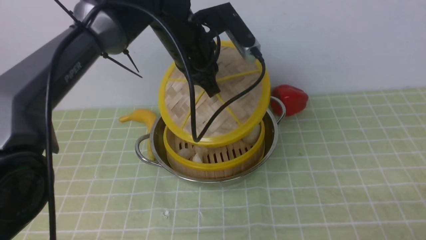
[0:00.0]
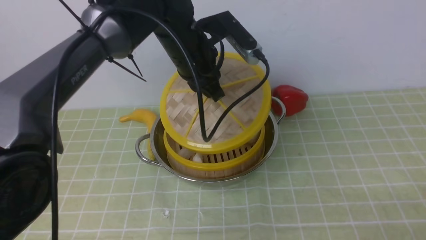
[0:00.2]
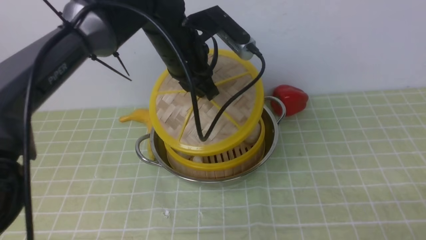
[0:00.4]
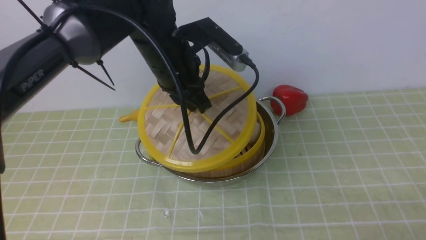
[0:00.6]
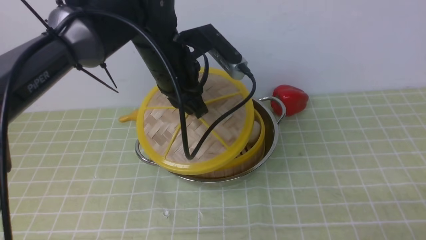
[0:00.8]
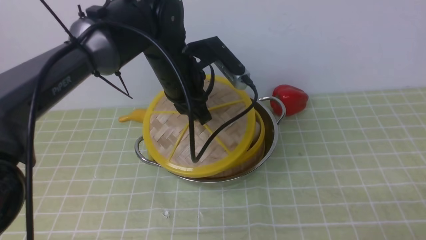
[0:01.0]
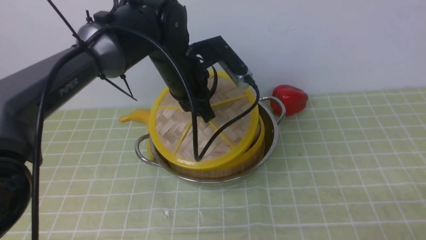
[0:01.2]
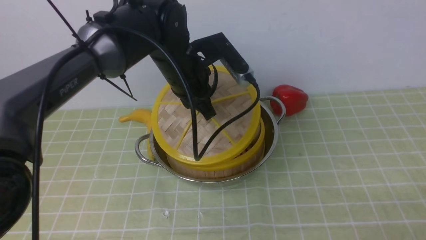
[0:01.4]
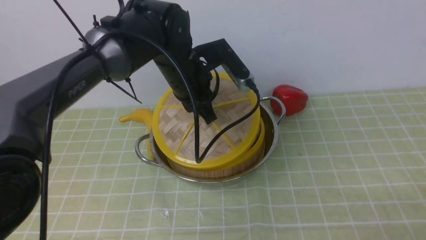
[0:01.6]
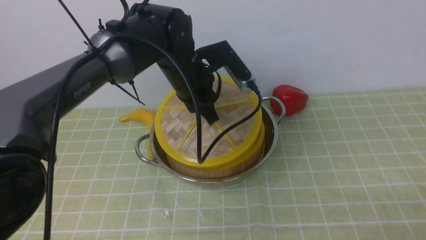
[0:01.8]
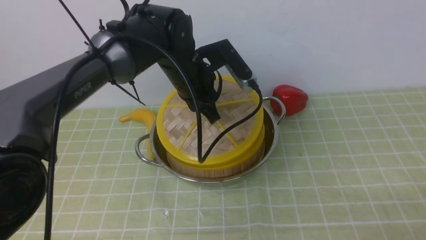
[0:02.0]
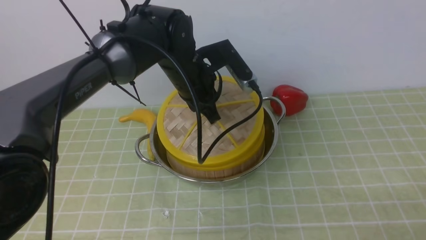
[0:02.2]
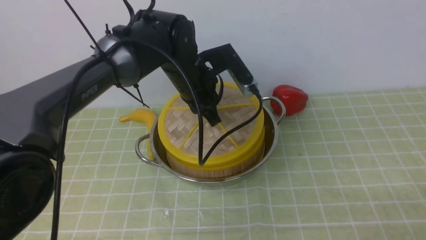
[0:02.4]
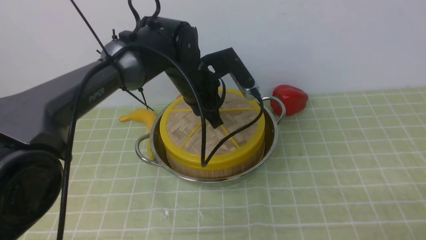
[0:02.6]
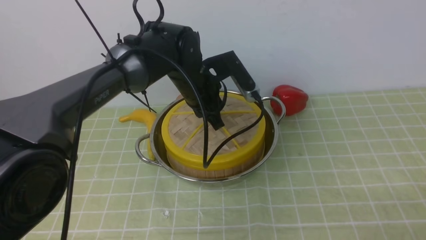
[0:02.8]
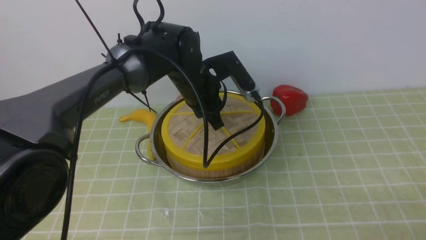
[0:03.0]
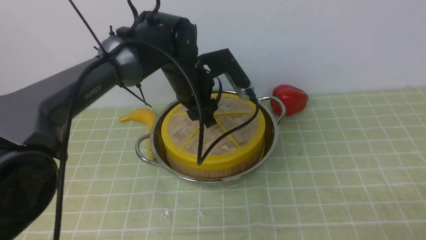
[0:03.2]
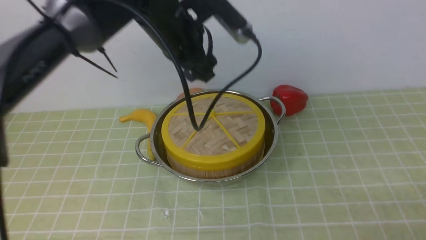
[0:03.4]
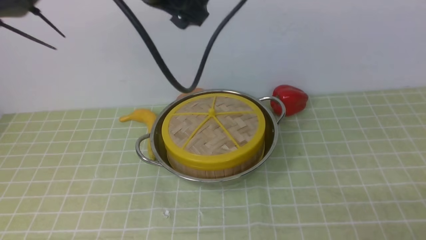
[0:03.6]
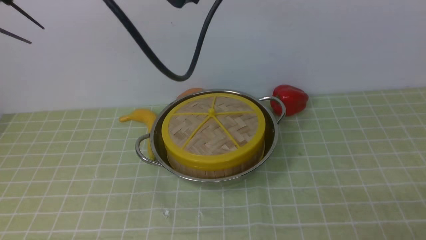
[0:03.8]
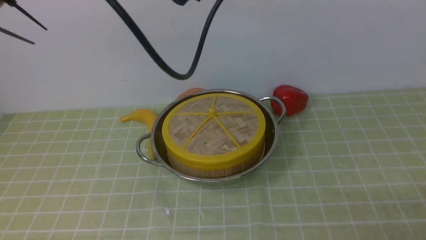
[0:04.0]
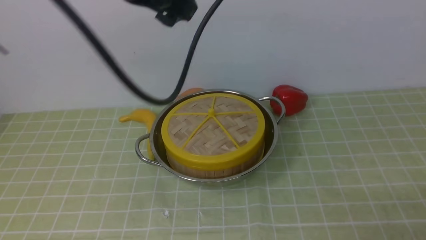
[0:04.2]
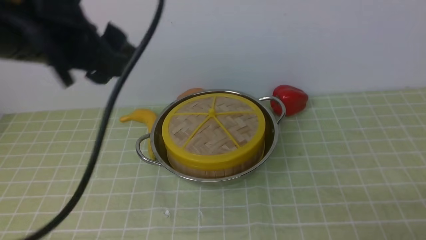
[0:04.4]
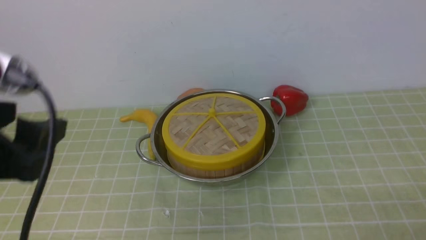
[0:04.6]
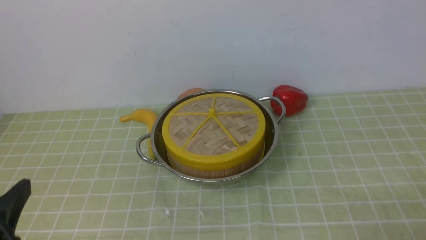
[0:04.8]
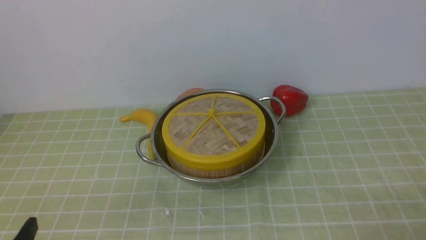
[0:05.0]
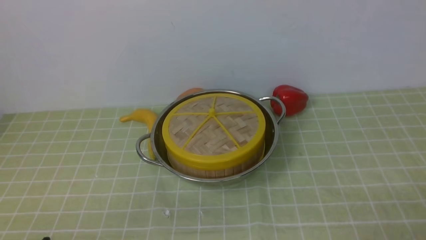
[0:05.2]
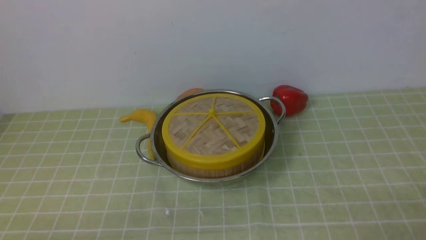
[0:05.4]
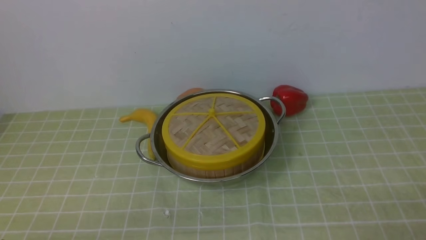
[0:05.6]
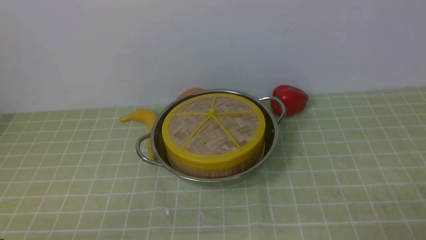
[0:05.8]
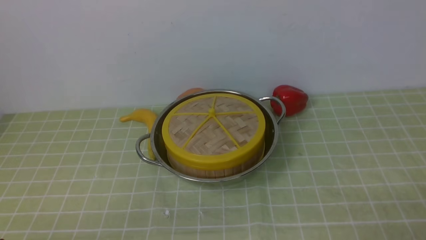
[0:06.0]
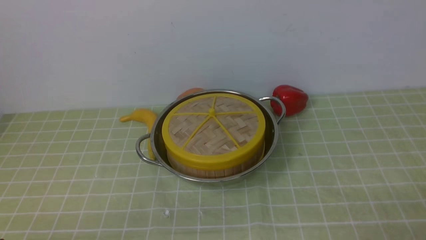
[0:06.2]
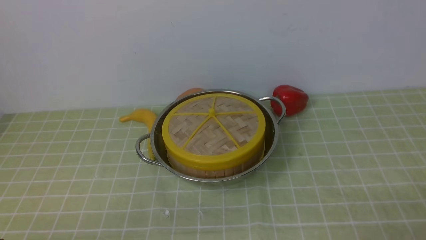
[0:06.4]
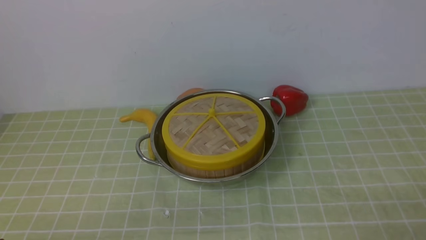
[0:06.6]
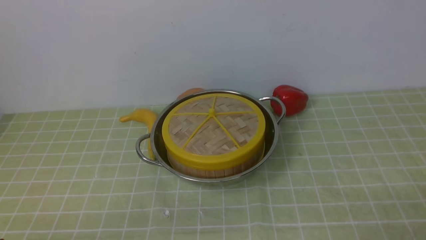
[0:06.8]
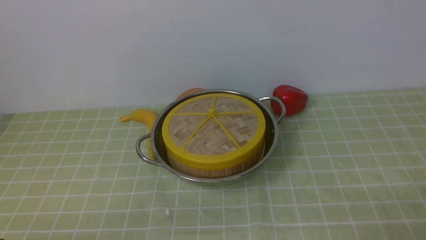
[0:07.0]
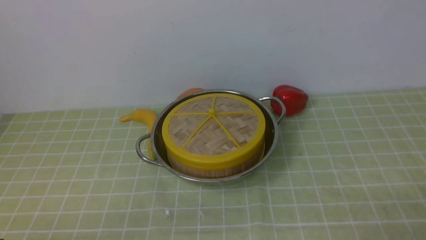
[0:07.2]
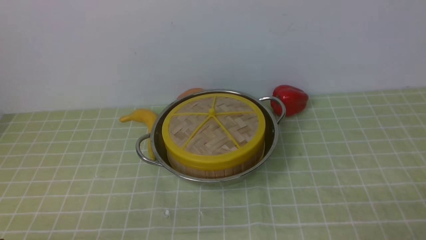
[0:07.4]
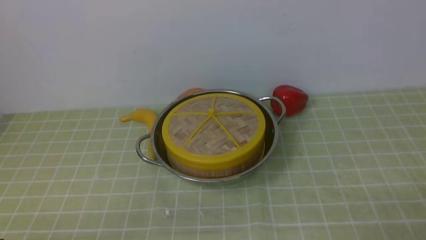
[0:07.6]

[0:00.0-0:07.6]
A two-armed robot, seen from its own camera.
Task of the whole recording: place the steamer in the pot on the green tablecloth, and put the lid on the steamer.
Step, 0:00.0 to 0:03.8: use the left arm to place the steamer lid on the steamer.
0:01.6 to 0:03.0: The grippers move only a little.
0:03.0 to 0:04.6: The left gripper moves backward, upward and to the left, about 35 cm, and opens up.
0:04.6 to 0:06.0: The left gripper shifts roughly 25 cm downward and backward.
0:06.0 to 0:07.6: The two grippers keep their place.

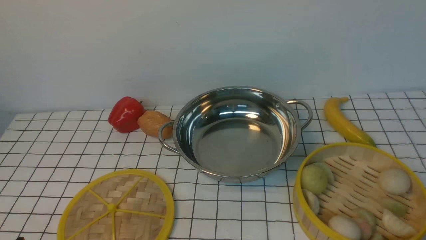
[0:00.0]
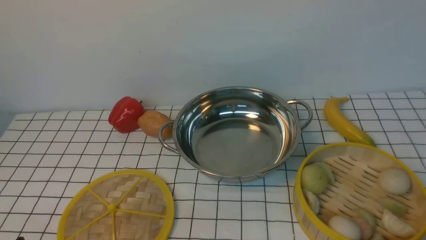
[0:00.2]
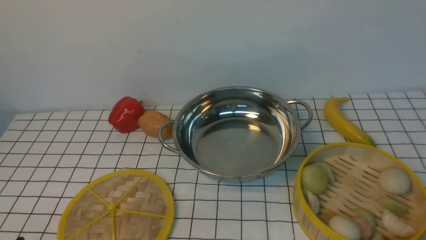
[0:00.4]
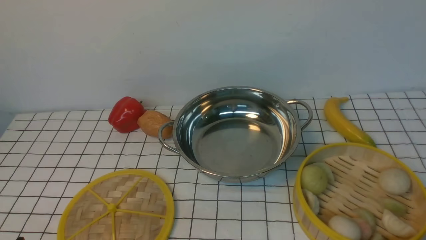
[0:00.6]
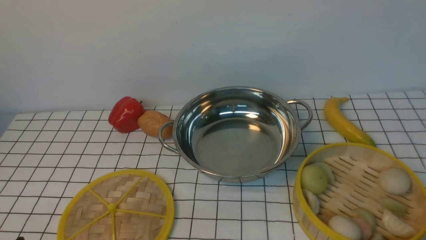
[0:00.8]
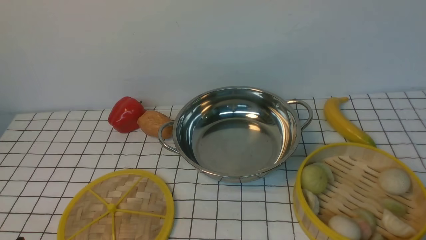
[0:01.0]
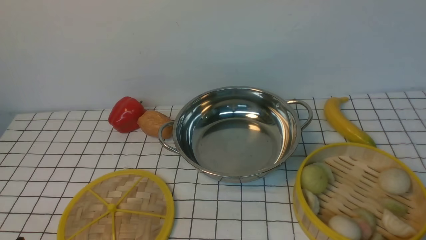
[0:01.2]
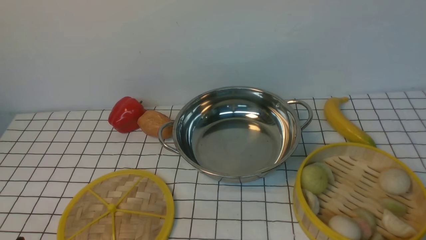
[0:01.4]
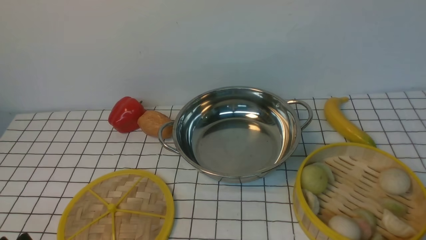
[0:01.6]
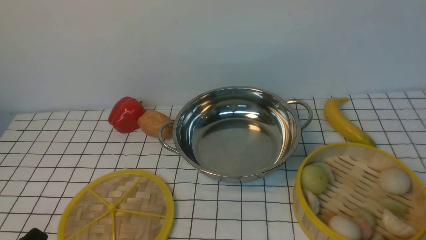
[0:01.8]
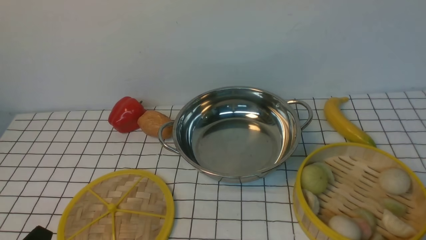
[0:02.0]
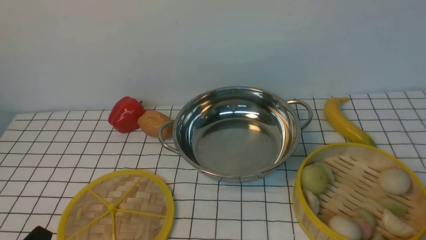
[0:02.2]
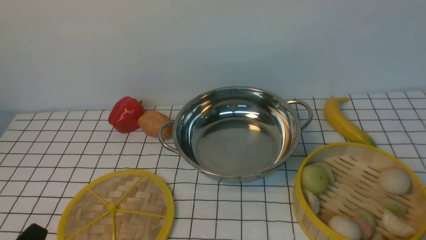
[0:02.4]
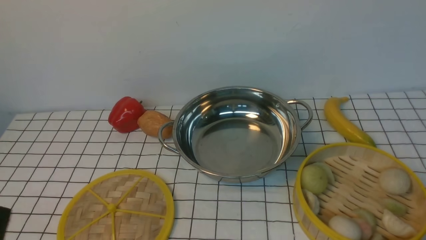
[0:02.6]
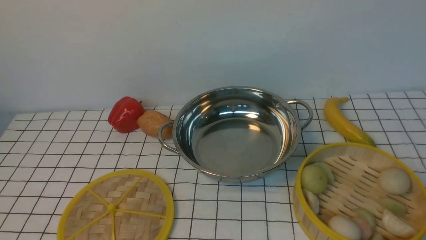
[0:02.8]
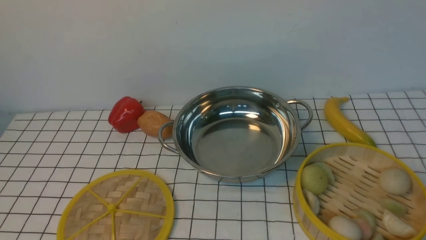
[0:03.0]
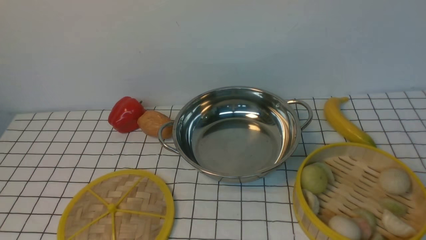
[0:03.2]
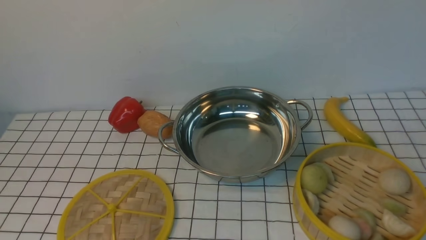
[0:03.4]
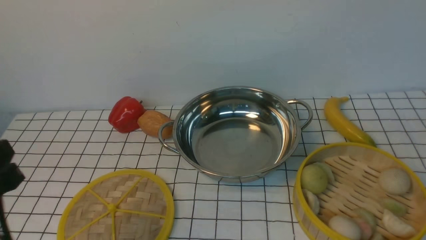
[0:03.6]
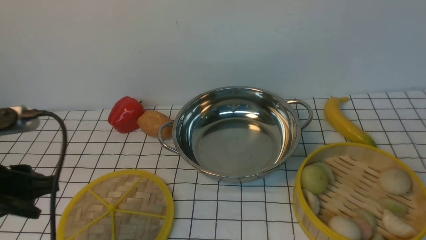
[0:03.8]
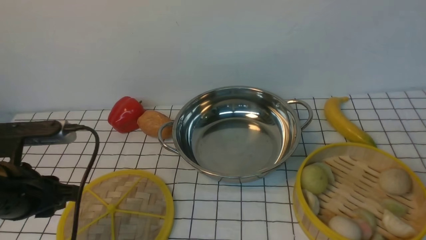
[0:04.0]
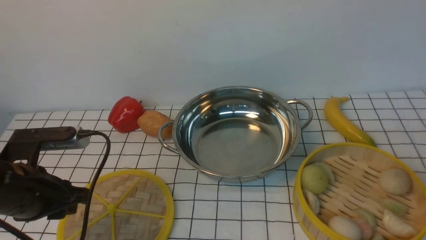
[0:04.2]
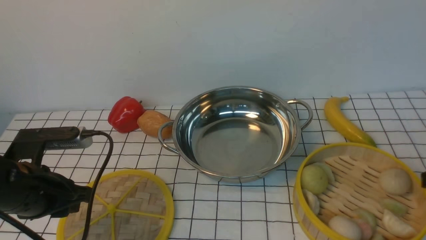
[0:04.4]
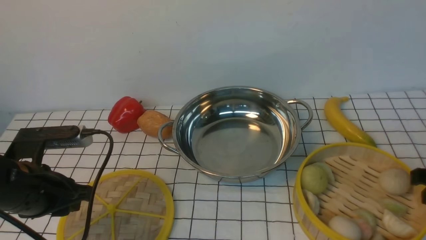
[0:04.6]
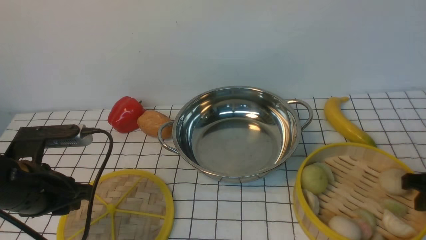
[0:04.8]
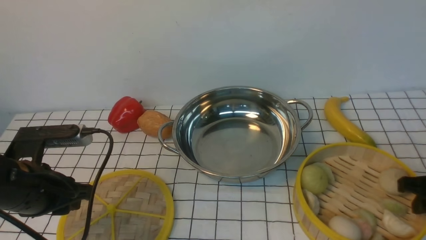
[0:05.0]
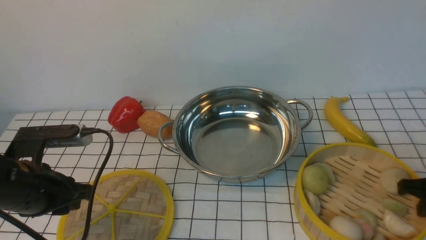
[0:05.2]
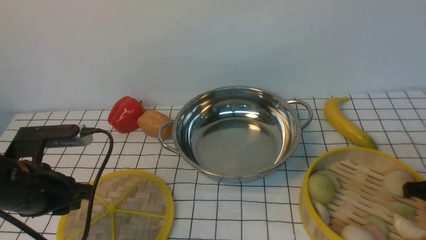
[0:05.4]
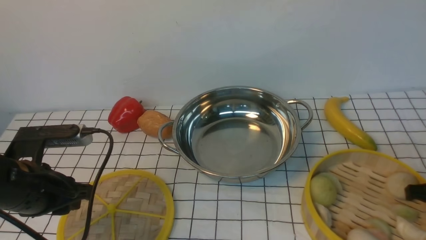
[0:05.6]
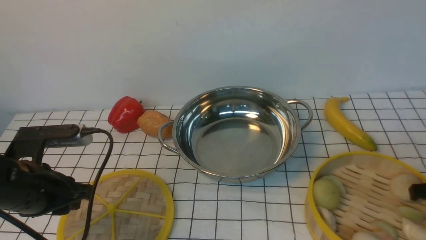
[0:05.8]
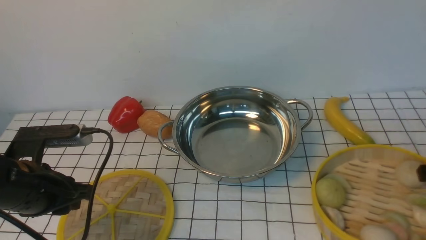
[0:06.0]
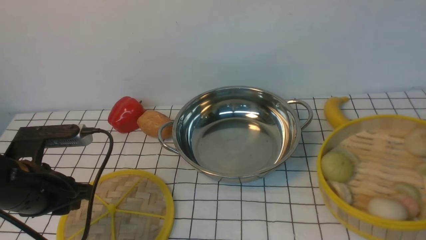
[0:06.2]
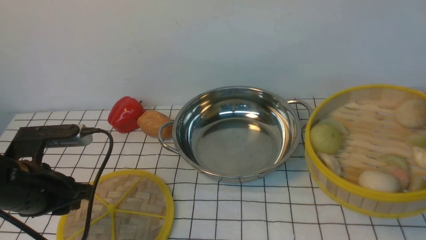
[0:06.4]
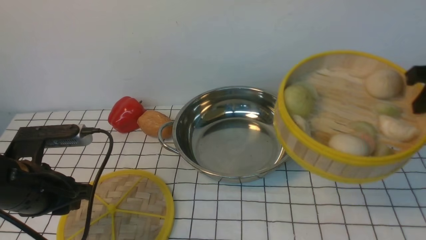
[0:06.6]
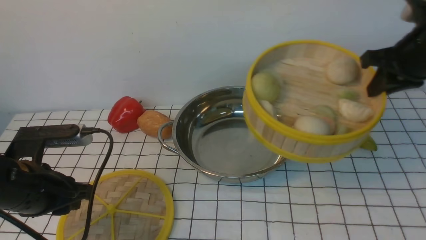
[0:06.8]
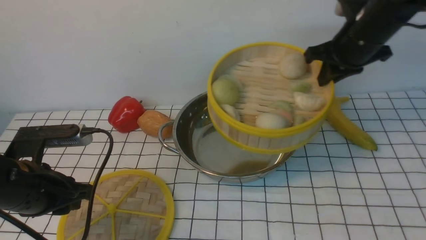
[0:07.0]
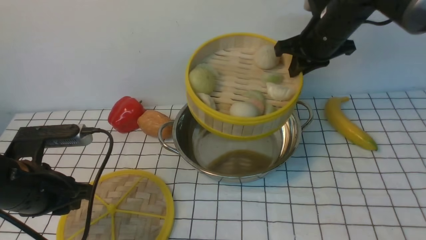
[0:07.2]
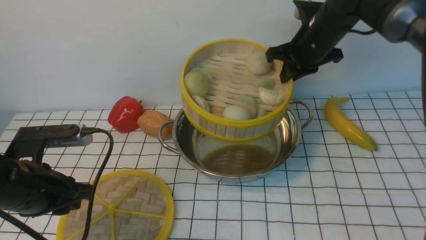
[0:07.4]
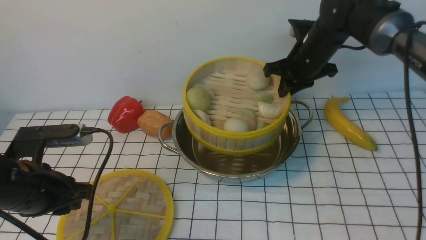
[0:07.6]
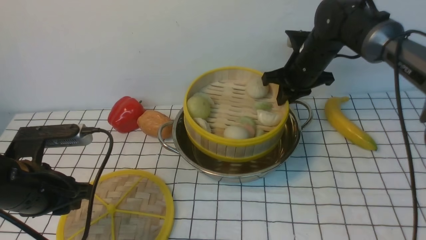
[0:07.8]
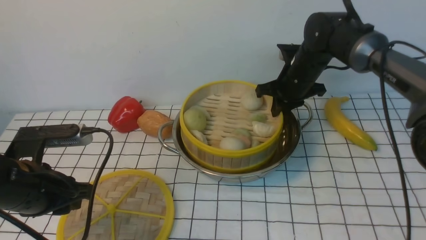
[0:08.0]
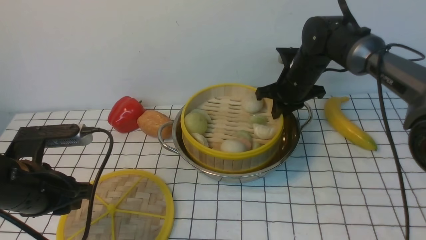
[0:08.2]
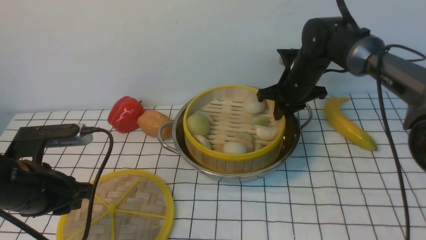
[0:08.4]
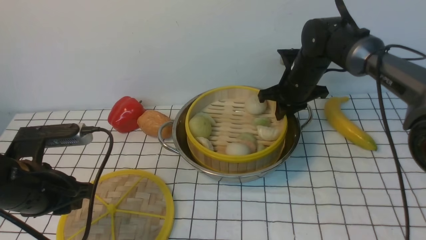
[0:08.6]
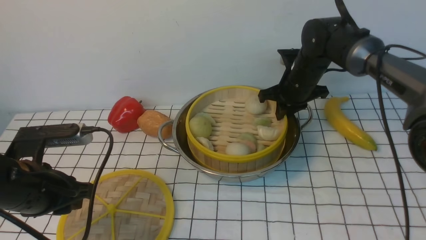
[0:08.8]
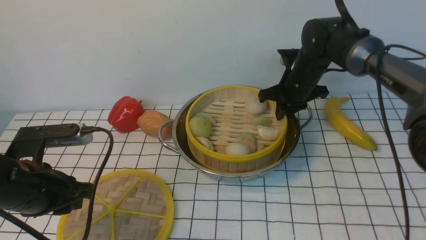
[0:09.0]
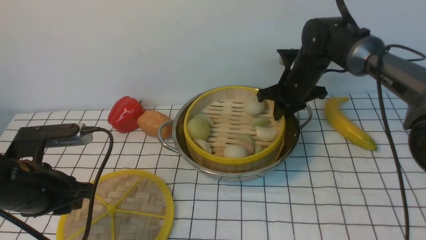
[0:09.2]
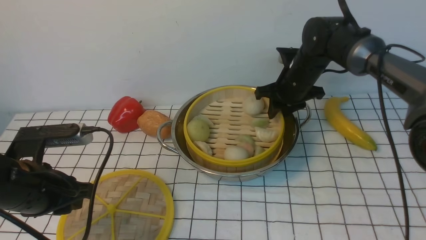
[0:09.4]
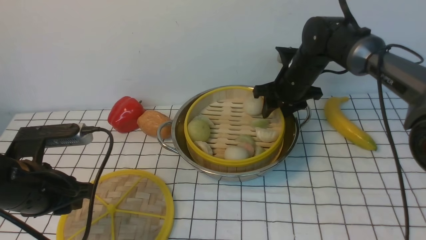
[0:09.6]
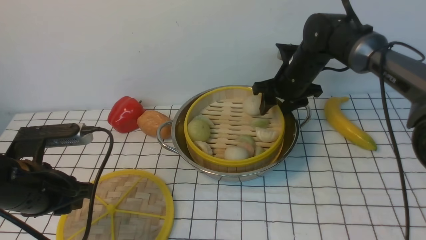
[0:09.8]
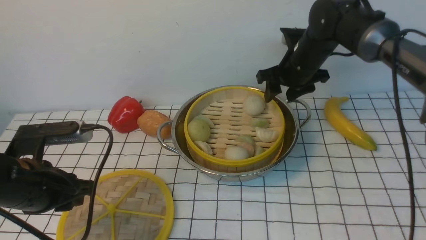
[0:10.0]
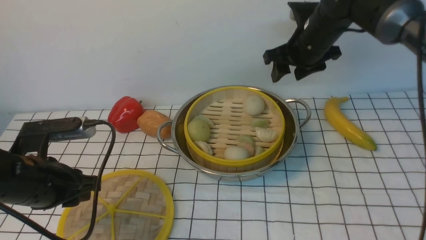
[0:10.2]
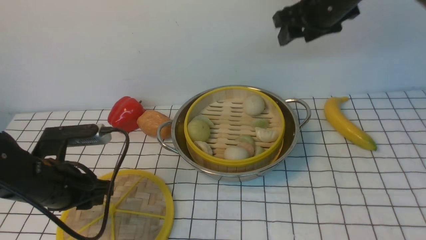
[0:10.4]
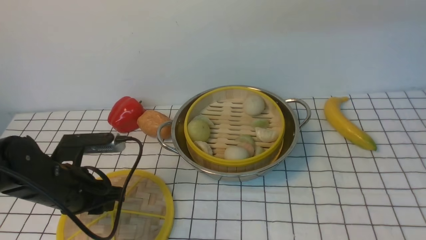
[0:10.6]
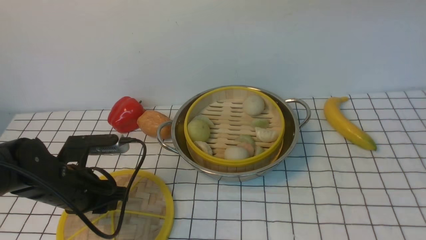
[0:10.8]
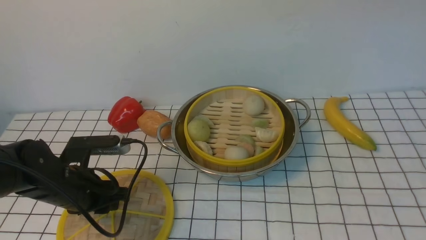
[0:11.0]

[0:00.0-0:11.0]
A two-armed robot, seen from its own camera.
Task of the whole recording: place the steamer in the pot on the white tablecloth, and put the lid on the steamer.
Step, 0:00.0 to 0:06.0: use the right arm to lift the steamer closest to it.
Step, 0:06.2 to 0:10.0: use the right arm to put the steamer into the iron steamer pot in the middle.
0:03.2 to 0:04.8: The right gripper moves forward and downward, some 20 cm. Meanwhile the left gripper shifts about 20 cm forward.
0:04.8 to 0:06.2: The right gripper ends up approximately 5 cm from where it was.
0:06.2 to 0:07.8: The right gripper moves forward and to the left, some 30 cm.
0:07.8 to 0:09.4: There are only small adjustments of the grippers.
0:09.4 to 0:11.0: The right gripper goes roughly 40 cm upward and backward, and opens up. The left gripper moves downward, about 5 cm.
